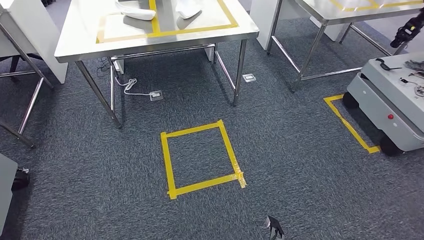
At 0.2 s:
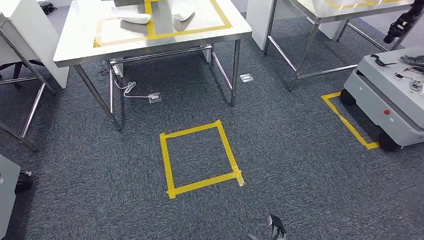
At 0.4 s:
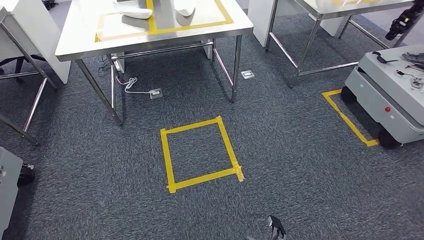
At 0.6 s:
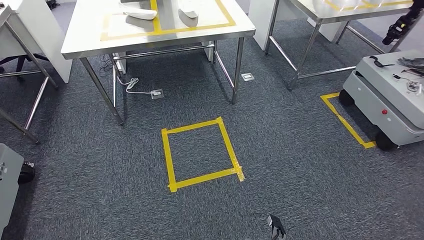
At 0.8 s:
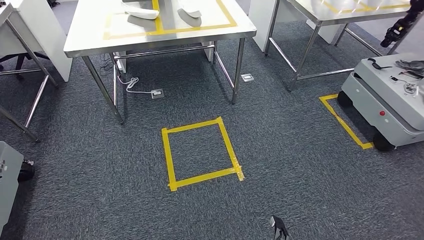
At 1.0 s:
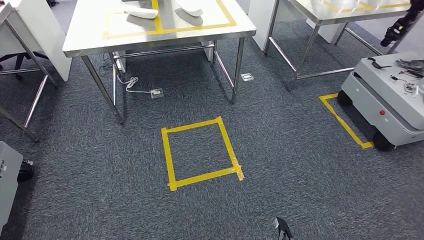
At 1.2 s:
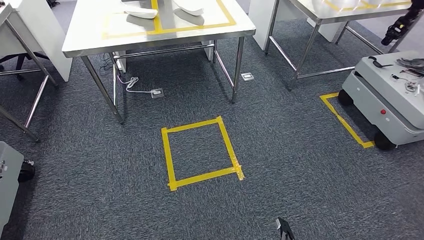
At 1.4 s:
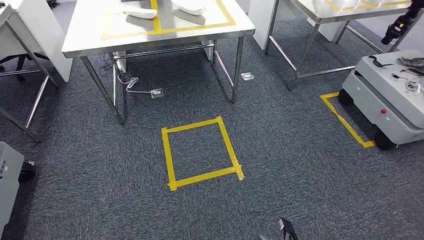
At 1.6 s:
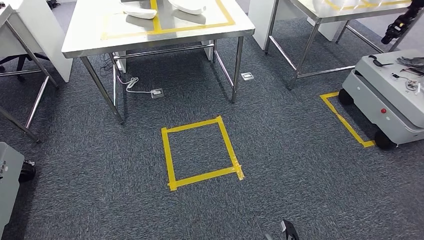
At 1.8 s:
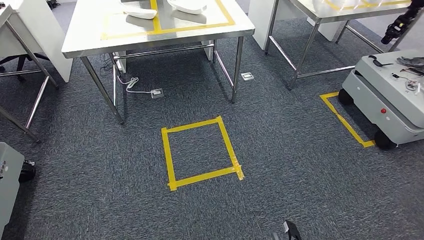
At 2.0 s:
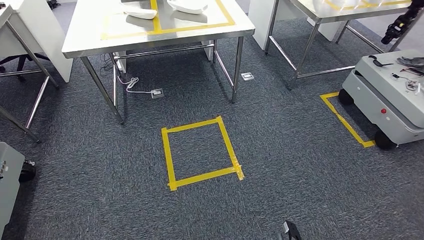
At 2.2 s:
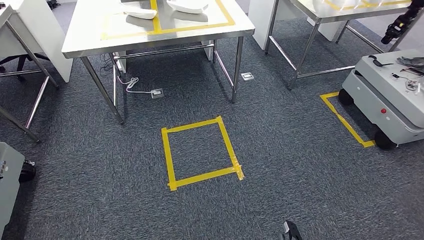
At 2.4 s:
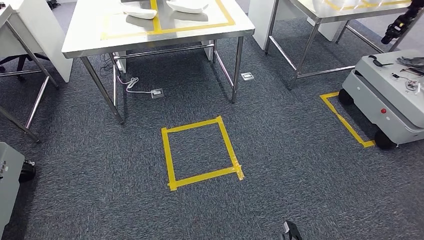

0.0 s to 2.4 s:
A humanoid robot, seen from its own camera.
Step, 0.0 to 2.4 s: Return to the initial position at the workbench.
0.0 to 1.2 s: The left hand is displaced backward by about 5 cm.
1.2 to 2.4 s: The hands stay close to where they were, moving slightly.
